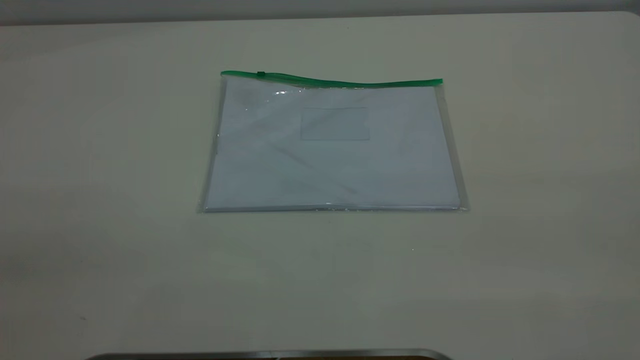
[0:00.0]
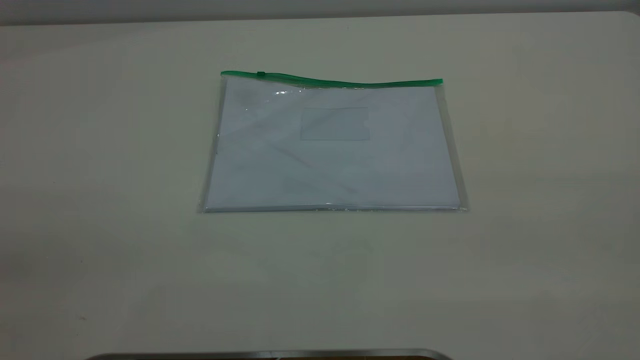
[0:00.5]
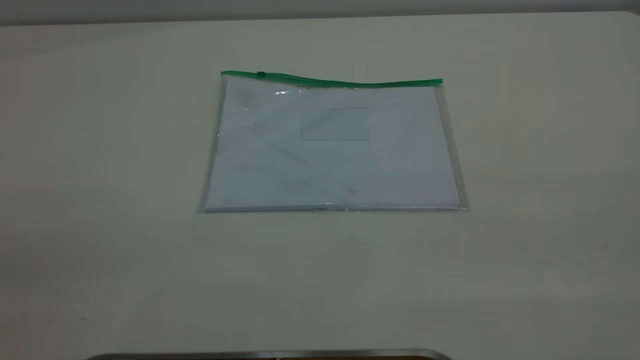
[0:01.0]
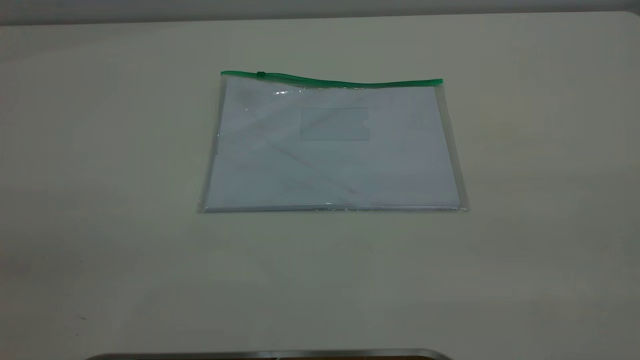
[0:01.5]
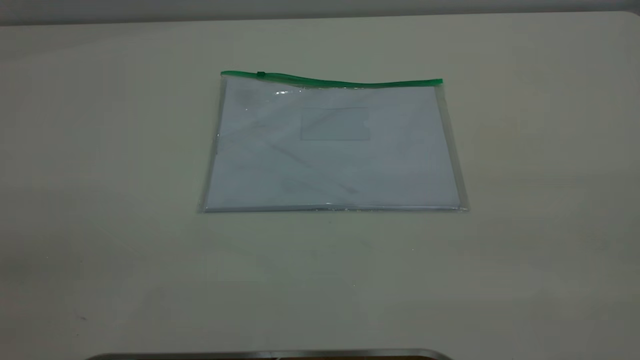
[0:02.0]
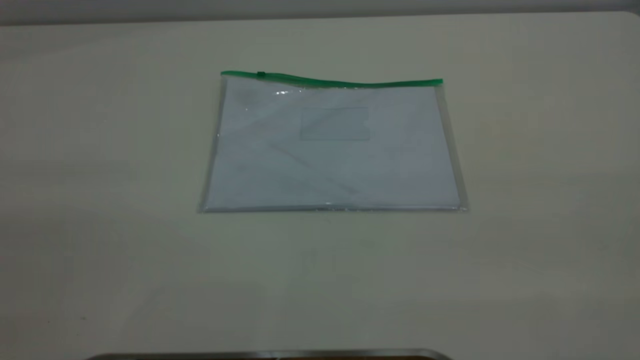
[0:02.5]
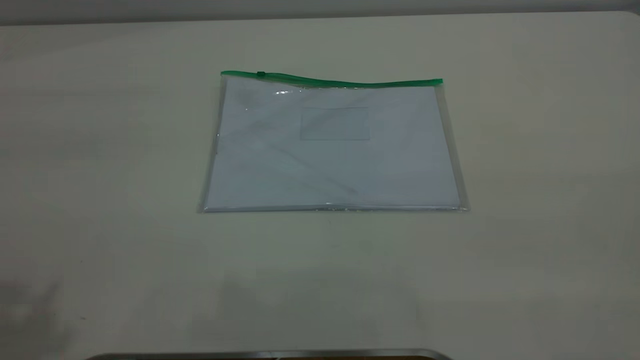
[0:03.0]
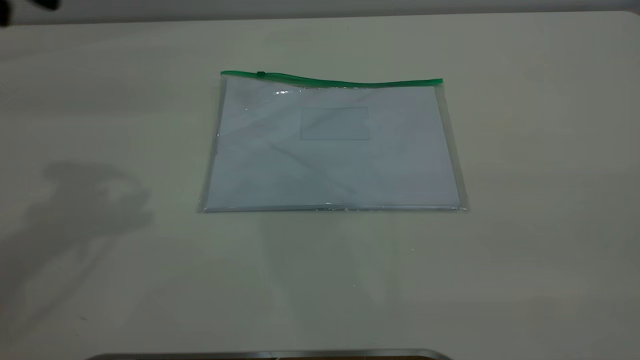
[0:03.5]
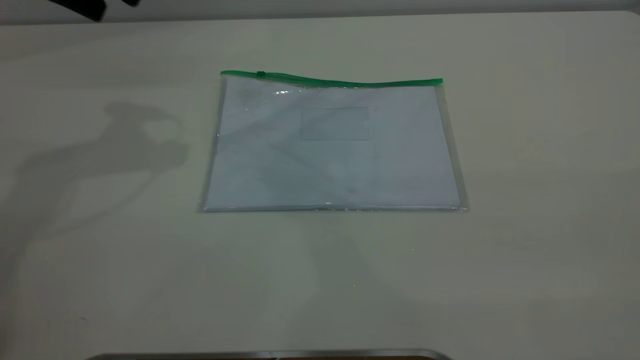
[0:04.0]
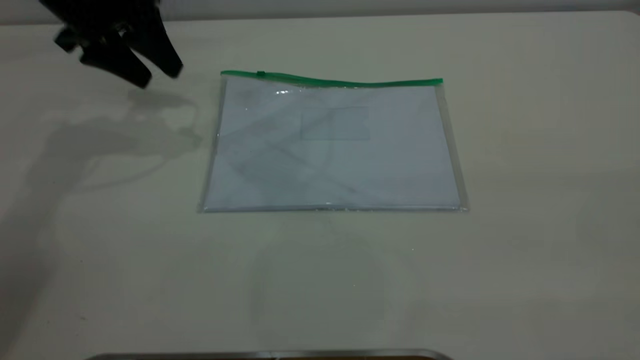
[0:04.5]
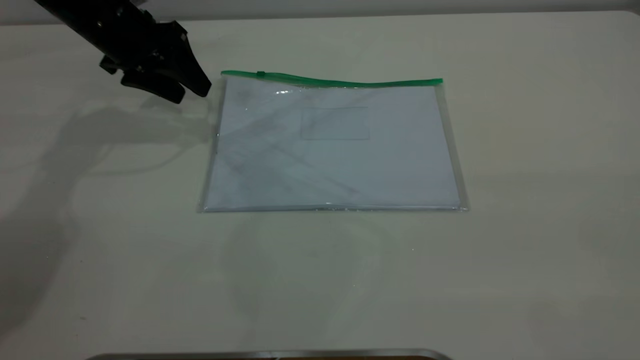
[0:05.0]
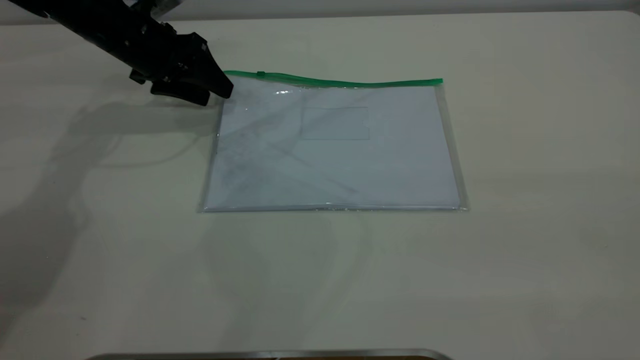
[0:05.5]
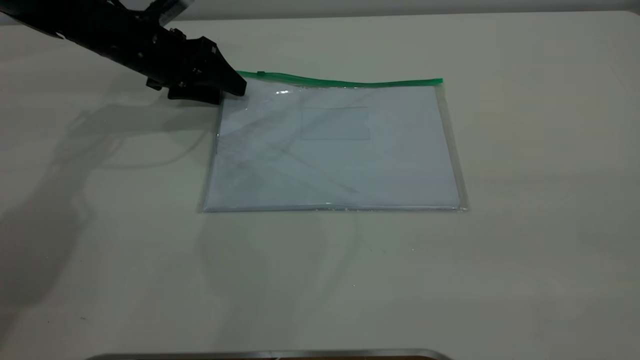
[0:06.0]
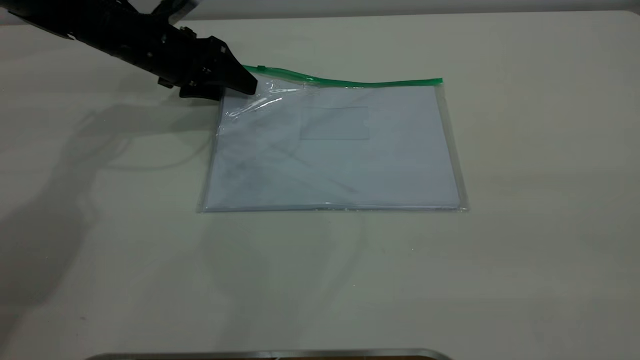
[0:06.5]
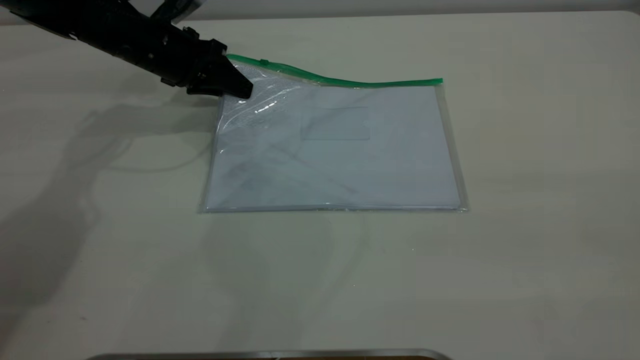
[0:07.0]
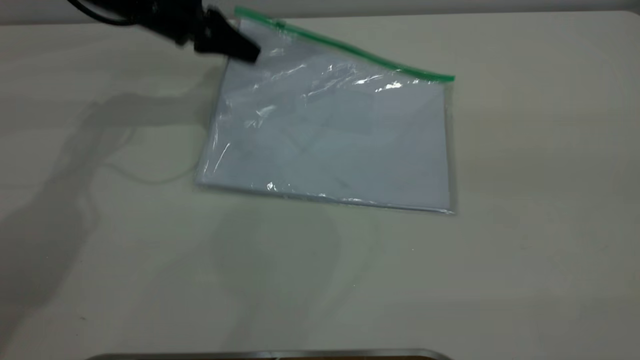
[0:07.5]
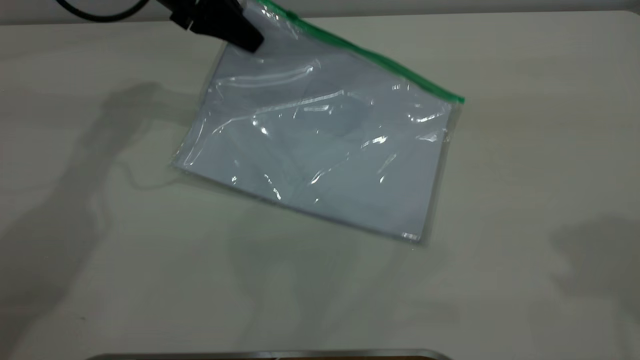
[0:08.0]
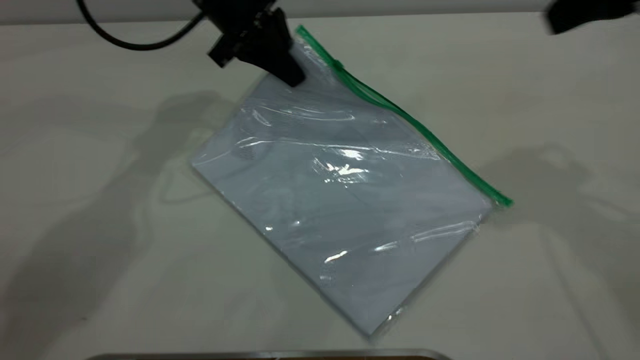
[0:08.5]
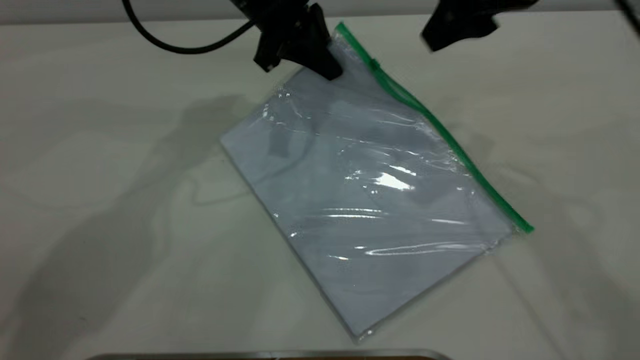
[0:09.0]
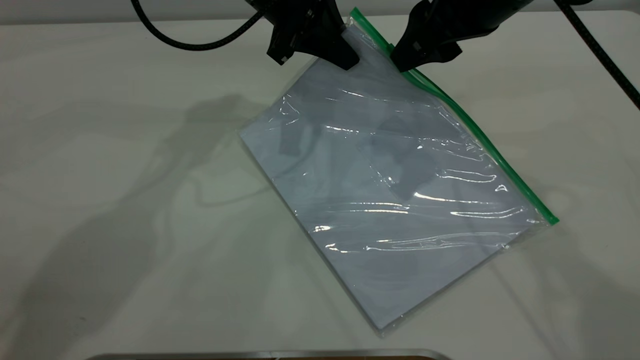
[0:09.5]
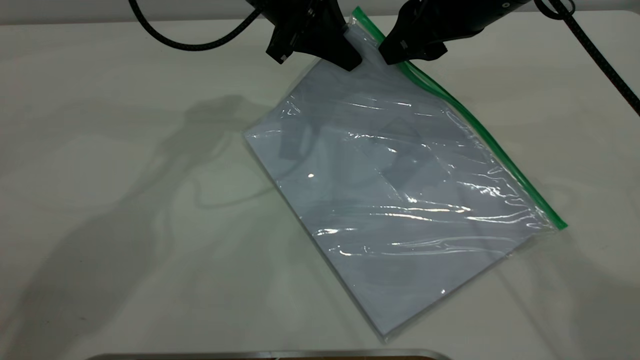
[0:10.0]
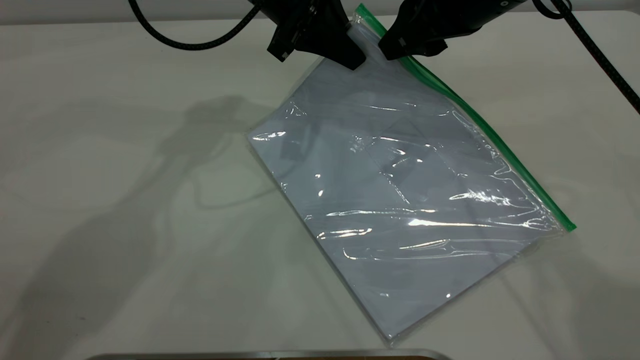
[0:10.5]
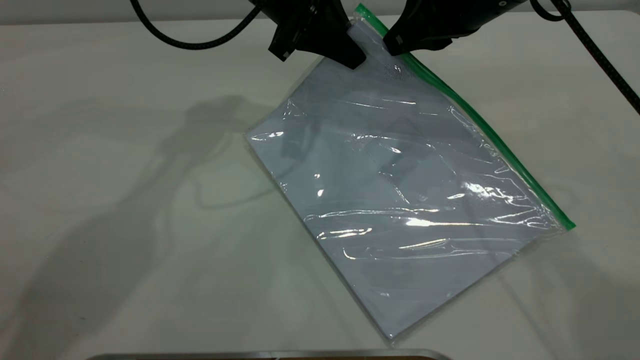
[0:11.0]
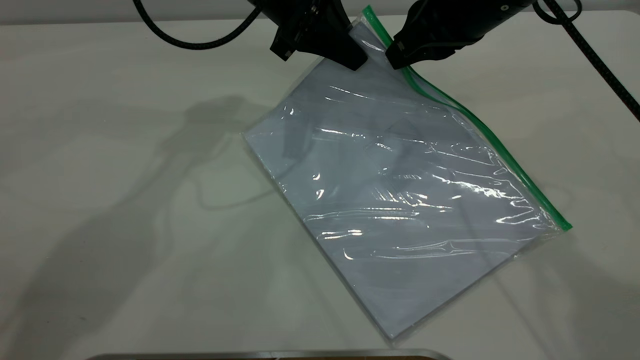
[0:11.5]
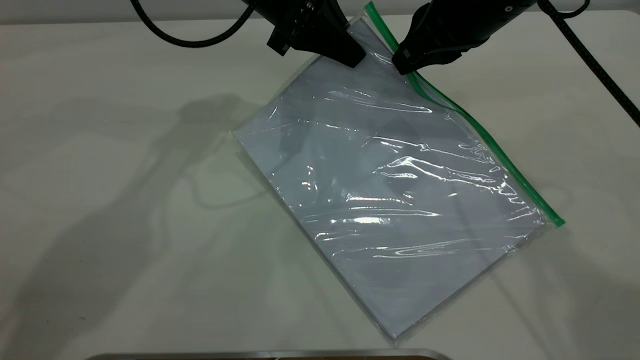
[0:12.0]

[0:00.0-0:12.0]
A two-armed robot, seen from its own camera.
Step, 0:00.0 to 0:07.0: Pick up the transparent plastic bag with the left gripper.
0:00.0 to 0:02.0: Neither gripper changes place.
0:04.0 to 0:06.0: The left gripper moves downward and forward, about 20 cm.
0:06.0 to 0:08.0: The right gripper moves forward, roughly 20 cm, while the left gripper travels upward and to the right by some 10 cm, and closes.
0:08.0 to 0:10.0: The right gripper goes some 25 cm forward, downward and to the left, while the left gripper travels to the right by some 10 cm.
0:10.0 to 0:12.0: The right gripper closes up.

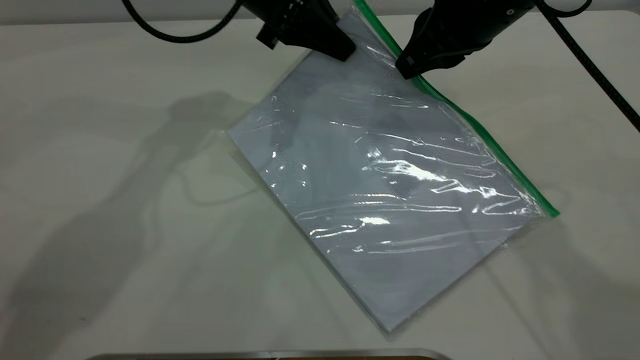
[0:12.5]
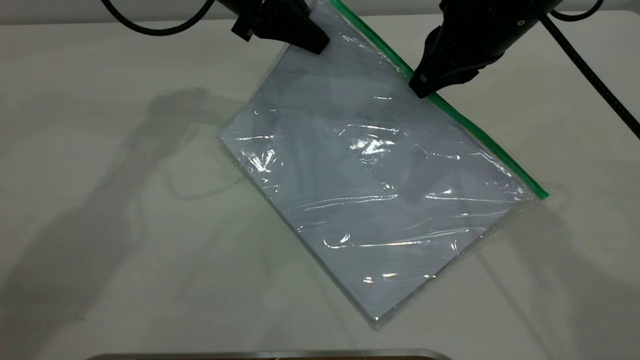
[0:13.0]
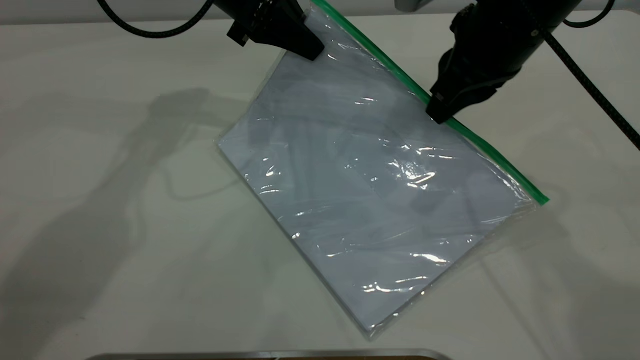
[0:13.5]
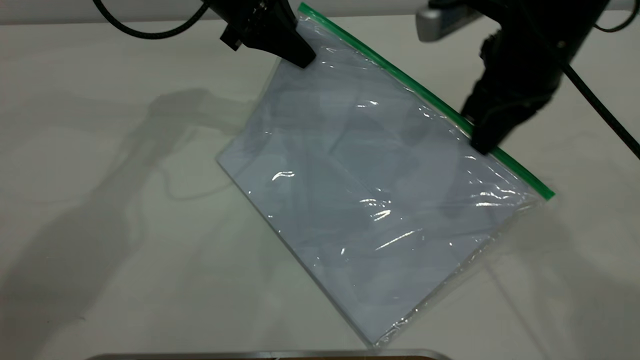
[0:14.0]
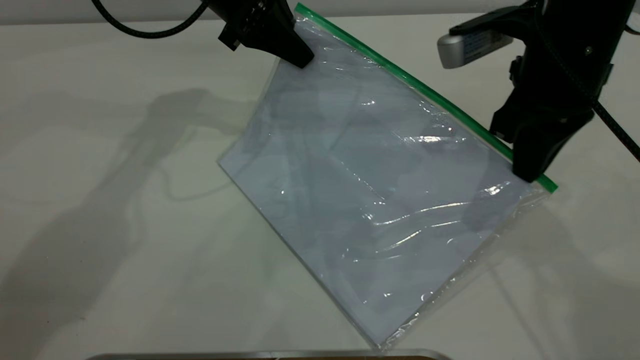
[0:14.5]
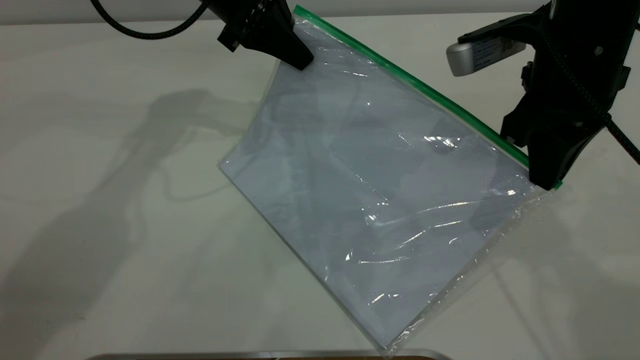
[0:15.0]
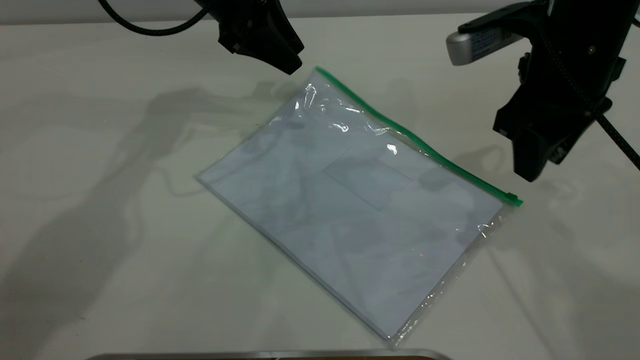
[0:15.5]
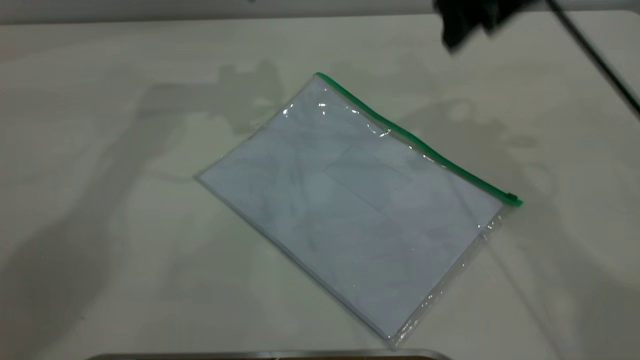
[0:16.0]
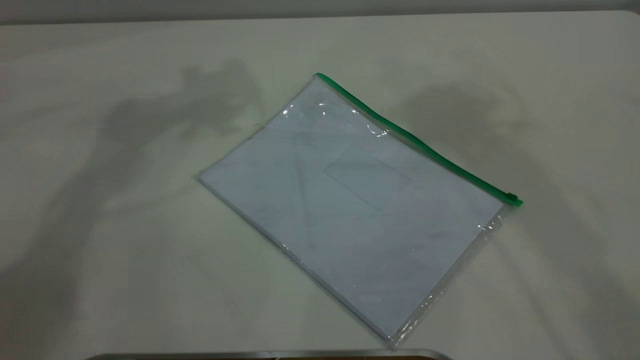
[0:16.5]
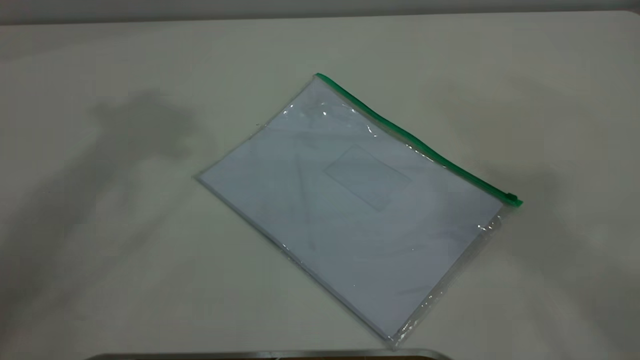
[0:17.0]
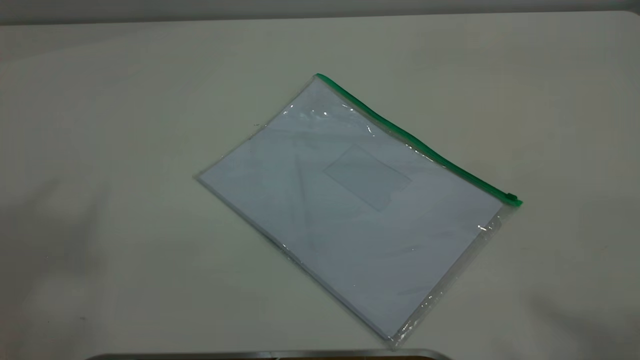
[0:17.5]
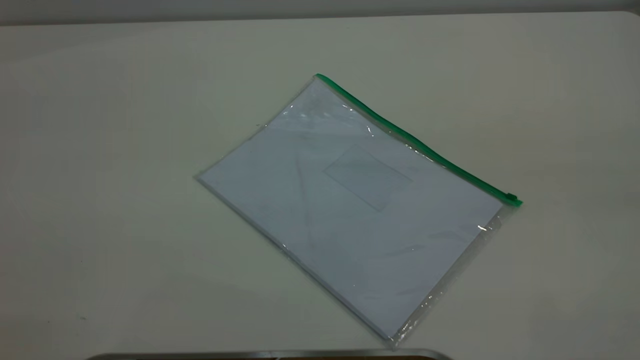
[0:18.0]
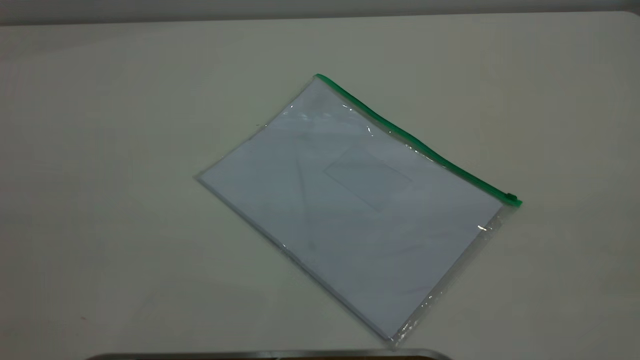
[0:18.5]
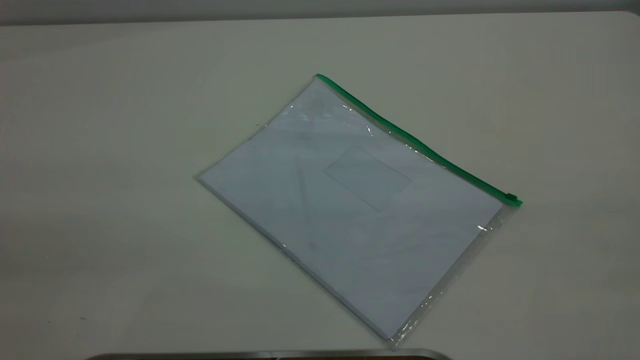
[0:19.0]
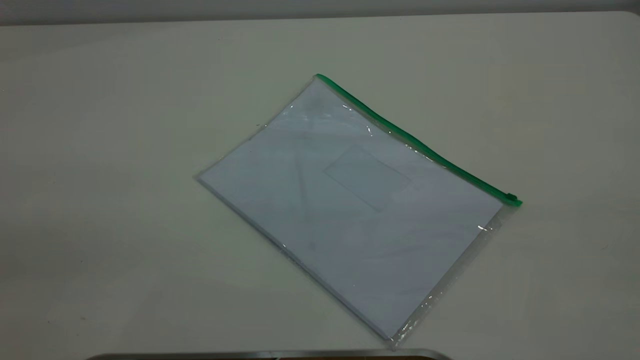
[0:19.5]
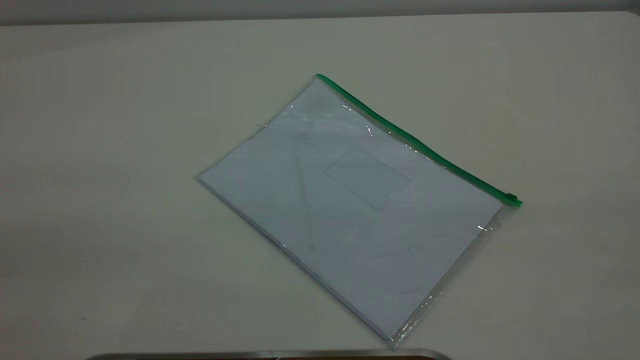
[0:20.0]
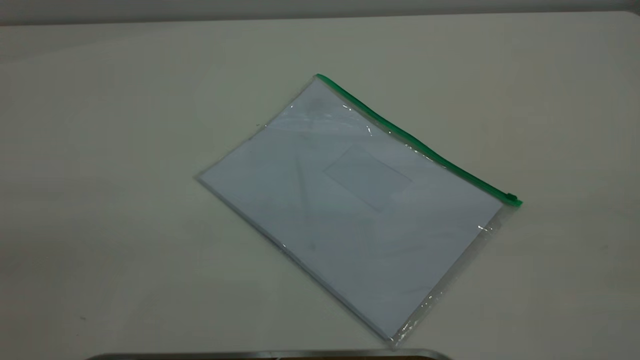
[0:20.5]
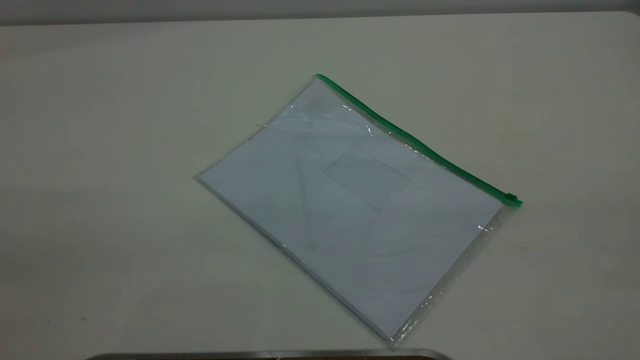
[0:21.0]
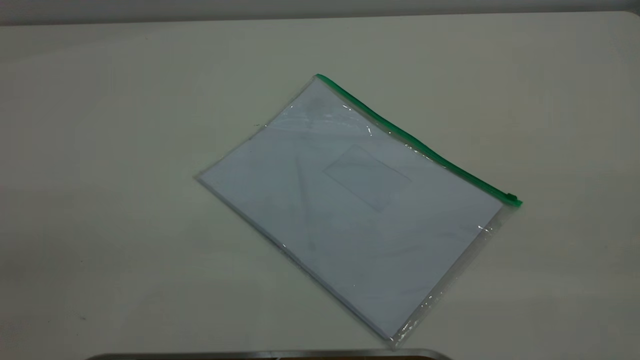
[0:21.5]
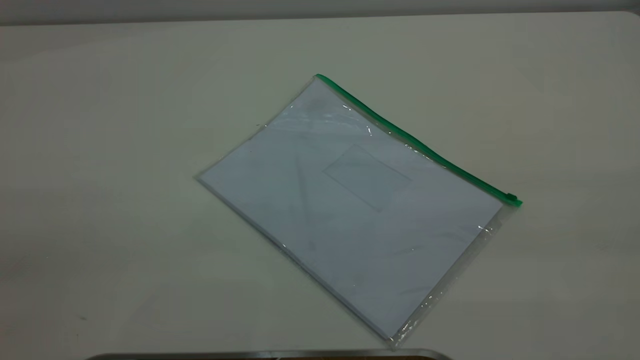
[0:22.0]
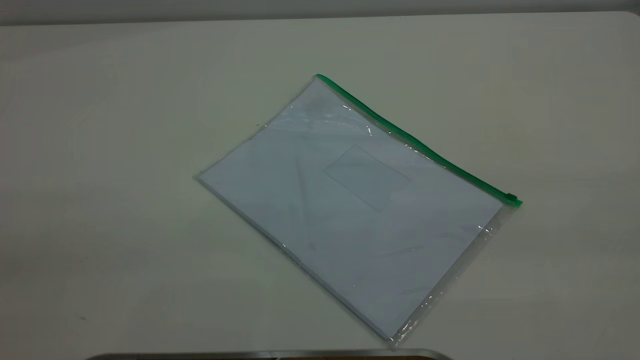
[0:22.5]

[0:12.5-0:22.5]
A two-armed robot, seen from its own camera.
Step, 0:12.5 to 0:15.0: Pulling up the zipper on the transparent plastic bag with the right gripper to close it.
0:12.5 to 0:14.5: The right gripper moves about 5 cm.
0:14.5 to 0:16.5: Both grippers travel together upward, roughly 30 cm. The right gripper opens its fingers. The left gripper opens up.
